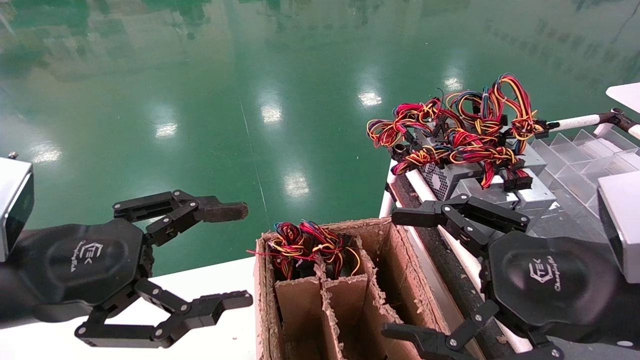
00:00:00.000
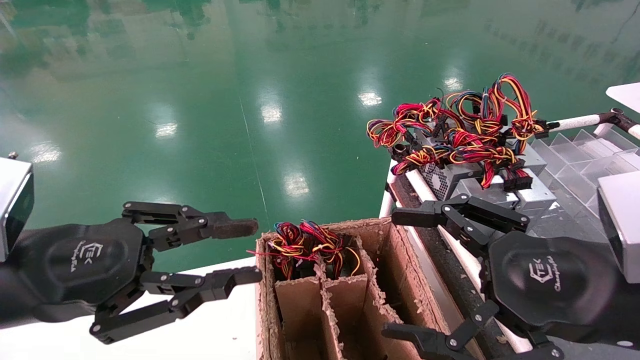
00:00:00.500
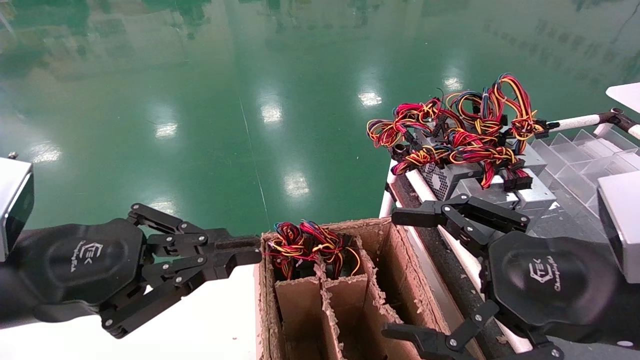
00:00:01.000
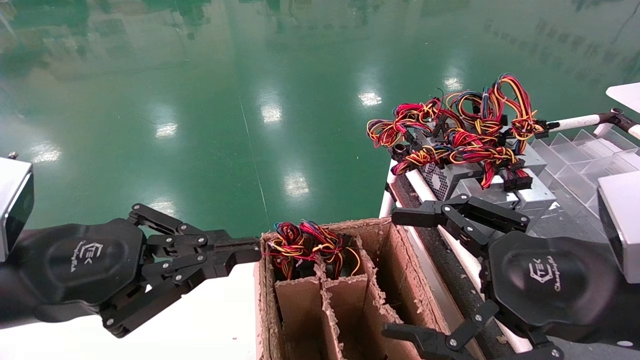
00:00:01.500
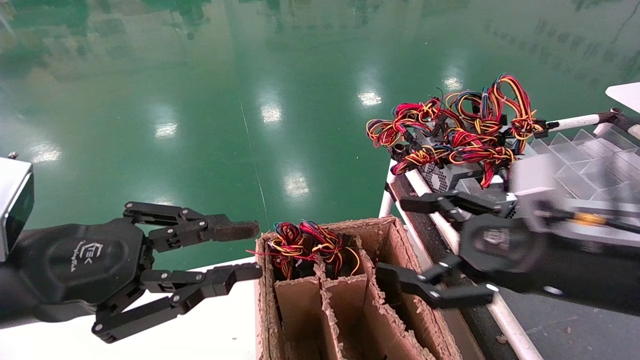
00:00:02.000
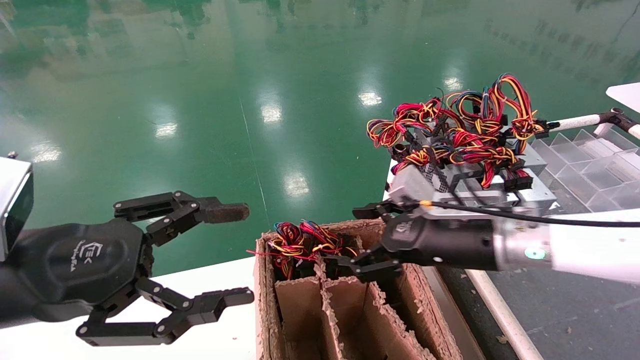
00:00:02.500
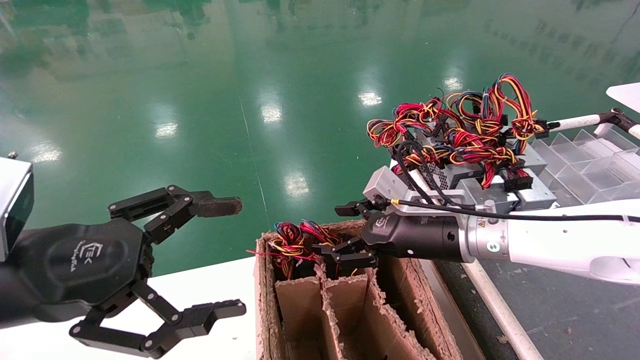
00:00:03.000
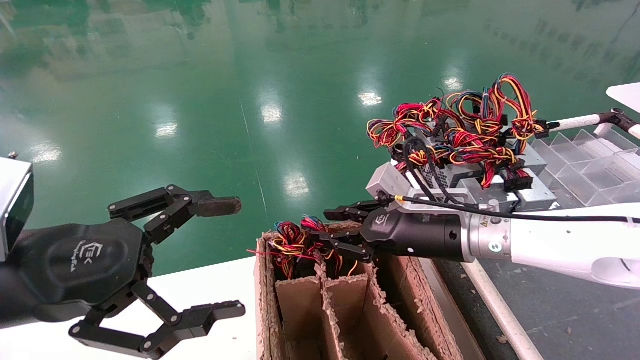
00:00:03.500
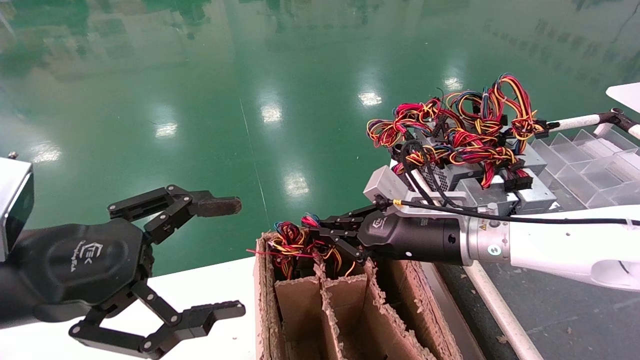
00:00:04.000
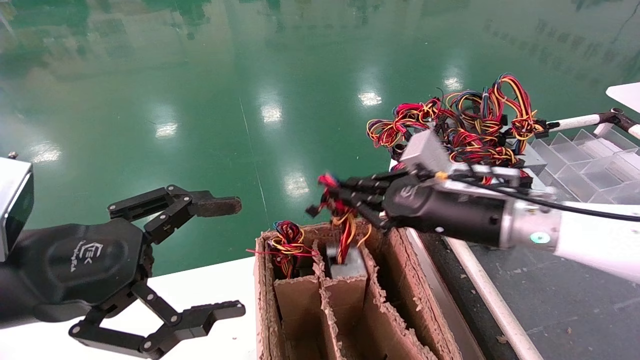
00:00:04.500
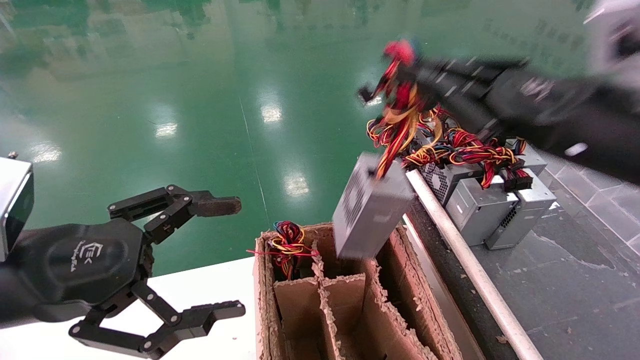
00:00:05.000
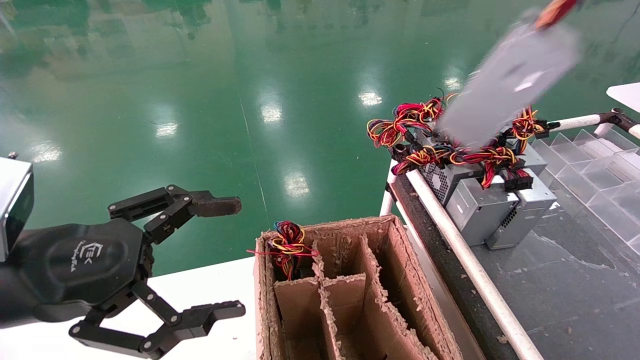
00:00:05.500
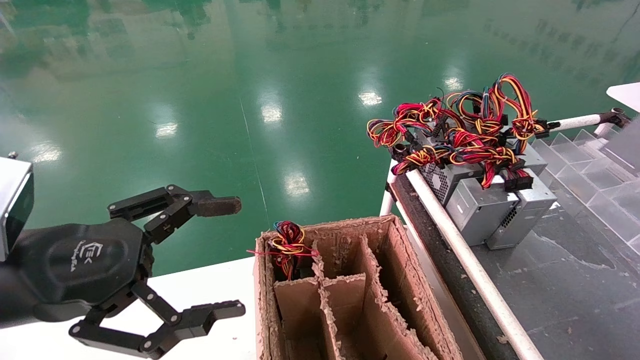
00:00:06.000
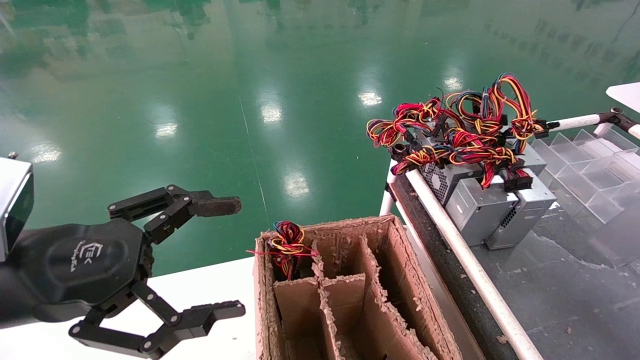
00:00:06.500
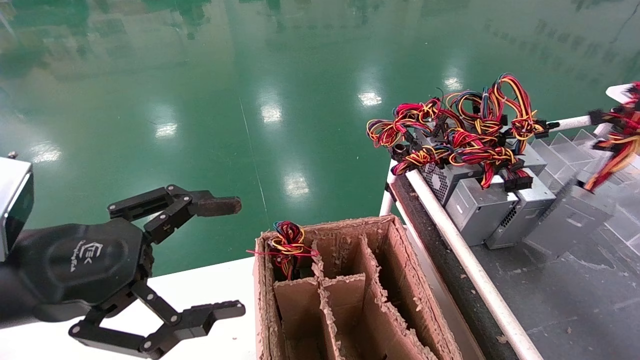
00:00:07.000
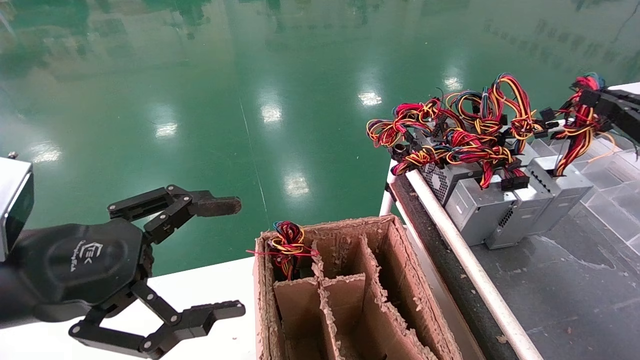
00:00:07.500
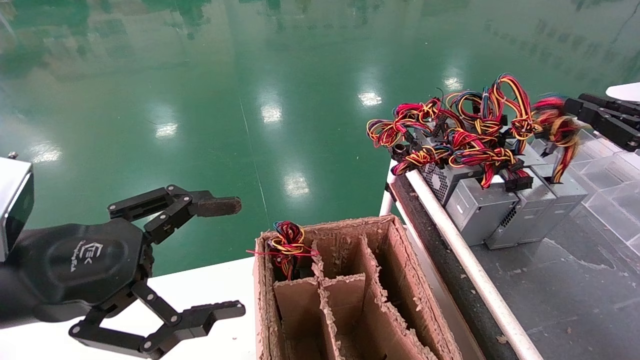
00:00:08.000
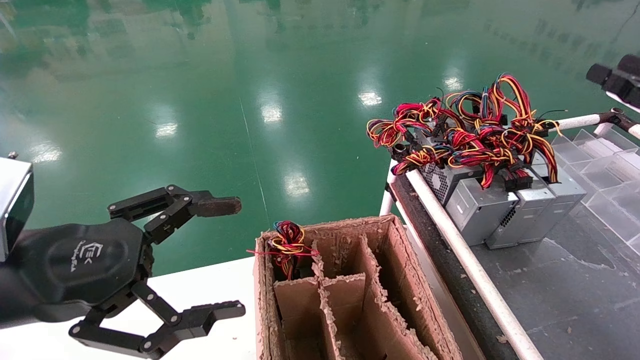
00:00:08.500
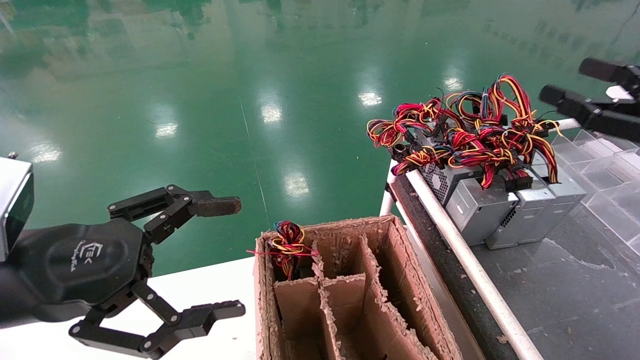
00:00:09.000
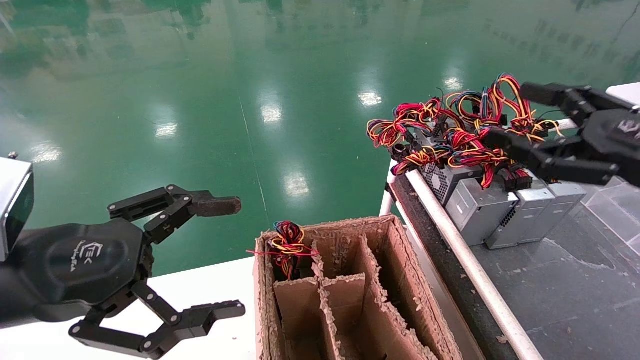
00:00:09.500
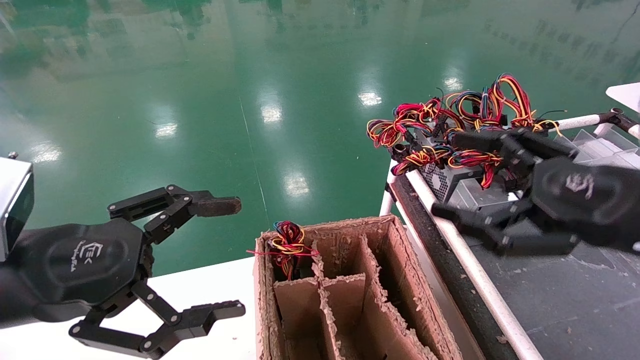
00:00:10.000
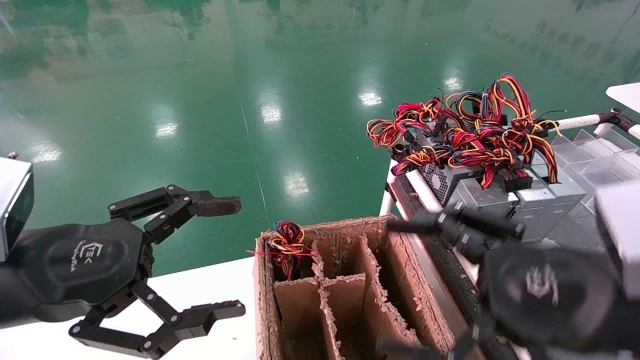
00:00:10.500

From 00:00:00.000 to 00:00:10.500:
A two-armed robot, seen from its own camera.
Step, from 00:00:01.500 to 00:00:03.500: Grab and lift the power supply from the large box.
Step, from 00:00:04.000 to 00:00:08.000: Place the power supply on the operating table.
From 00:00:00.000 to 00:00:02.000: The left gripper closes its fingers. Meanwhile the right gripper moves forward, some 5 cm.
From 00:00:02.000 to 00:00:04.000: The left gripper opens its fingers. Meanwhile the right gripper shifts about 15 cm forward and to the left, and closes its fingers.
From 00:00:04.000 to 00:00:06.500: The right gripper goes about 40 cm to the right and backward.
From 00:00:06.500 to 00:00:08.500: The right gripper heads forward and to the left, covering about 15 cm, and opens its fingers.
From 00:00:08.500 to 00:00:10.500: The right gripper is displaced to the left and backward by about 25 cm, and opens up.
